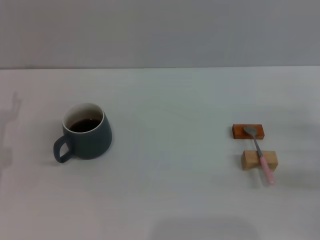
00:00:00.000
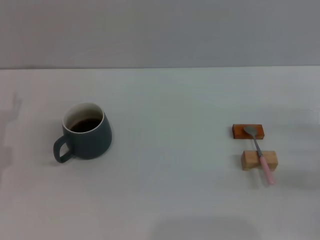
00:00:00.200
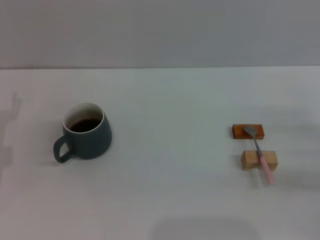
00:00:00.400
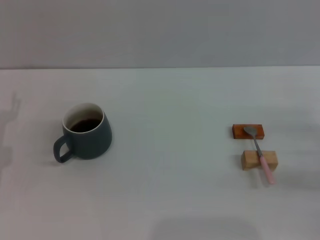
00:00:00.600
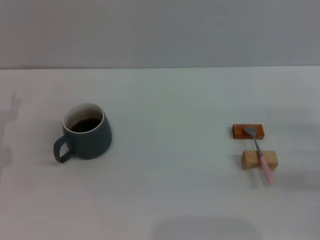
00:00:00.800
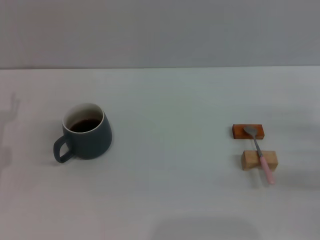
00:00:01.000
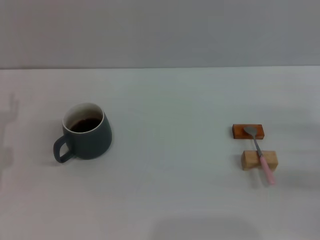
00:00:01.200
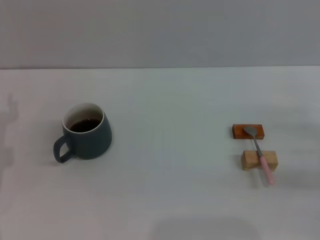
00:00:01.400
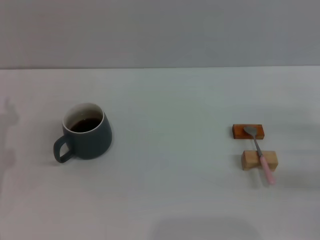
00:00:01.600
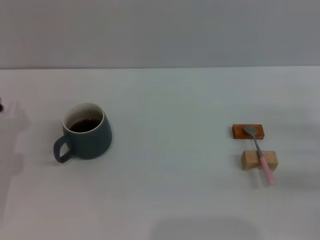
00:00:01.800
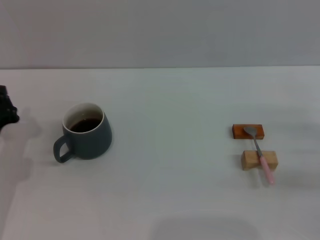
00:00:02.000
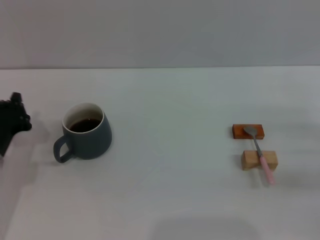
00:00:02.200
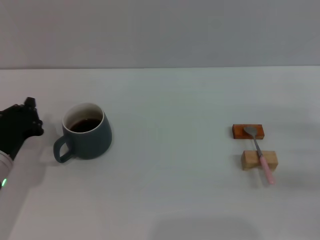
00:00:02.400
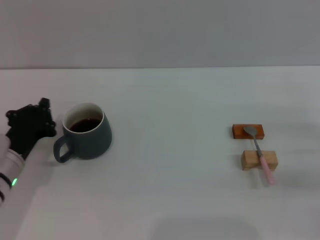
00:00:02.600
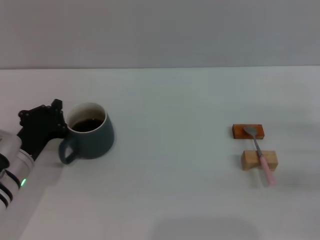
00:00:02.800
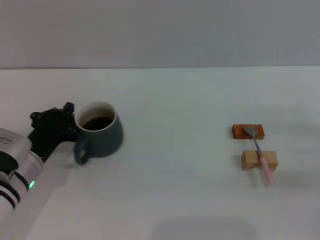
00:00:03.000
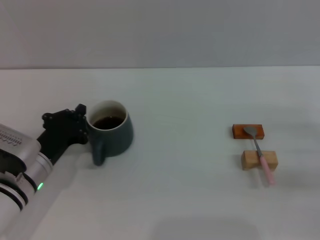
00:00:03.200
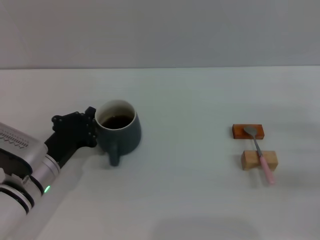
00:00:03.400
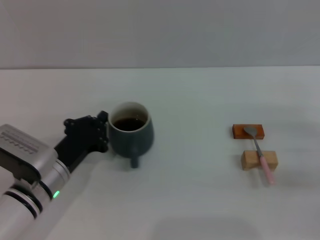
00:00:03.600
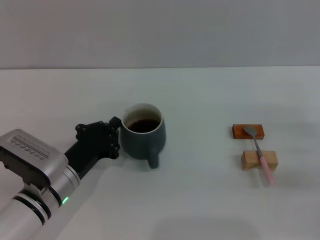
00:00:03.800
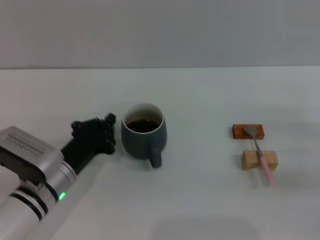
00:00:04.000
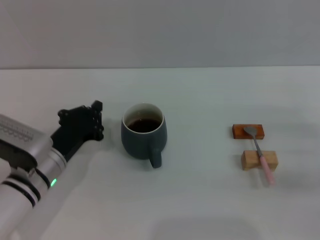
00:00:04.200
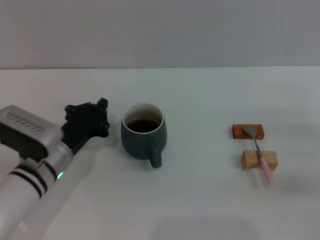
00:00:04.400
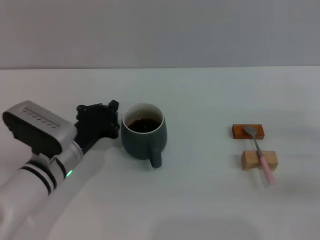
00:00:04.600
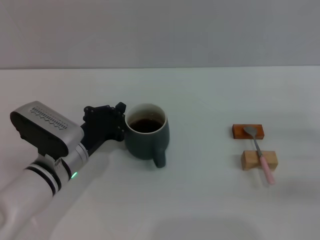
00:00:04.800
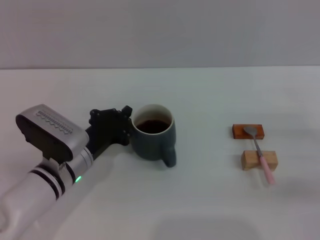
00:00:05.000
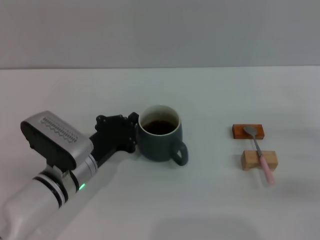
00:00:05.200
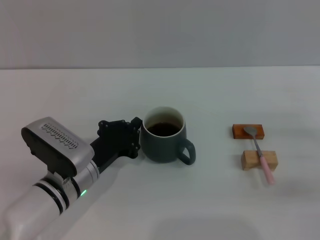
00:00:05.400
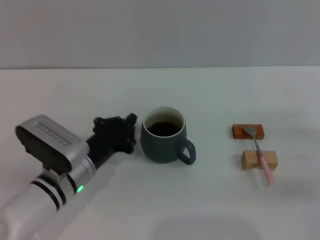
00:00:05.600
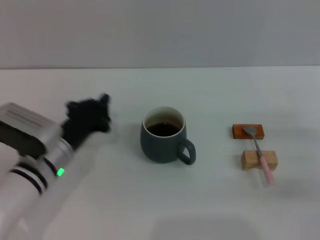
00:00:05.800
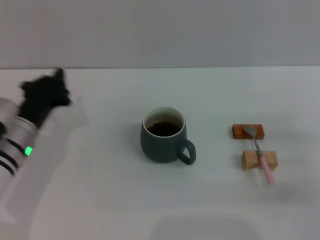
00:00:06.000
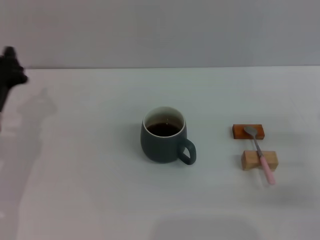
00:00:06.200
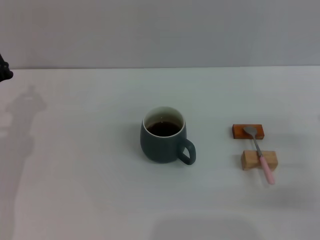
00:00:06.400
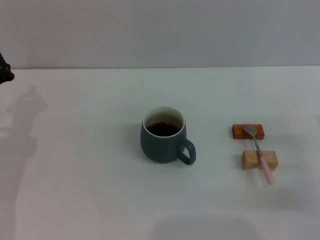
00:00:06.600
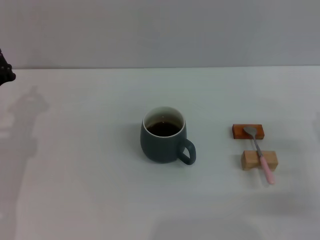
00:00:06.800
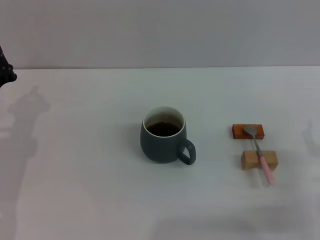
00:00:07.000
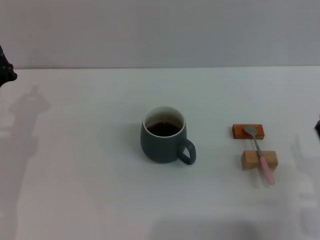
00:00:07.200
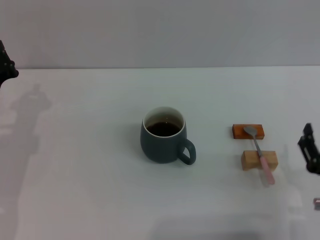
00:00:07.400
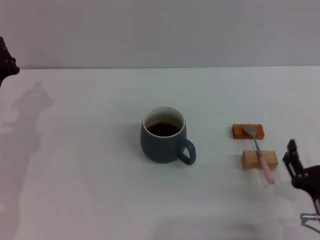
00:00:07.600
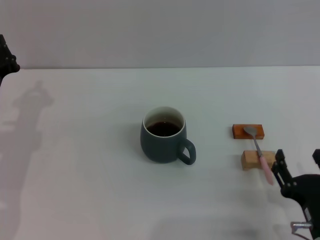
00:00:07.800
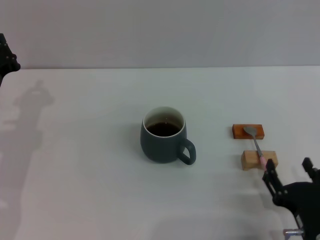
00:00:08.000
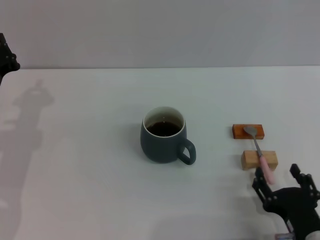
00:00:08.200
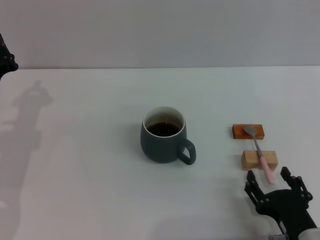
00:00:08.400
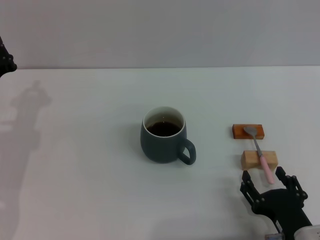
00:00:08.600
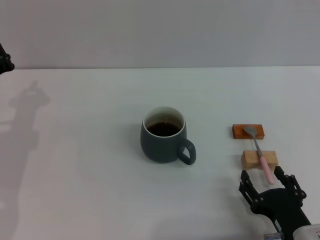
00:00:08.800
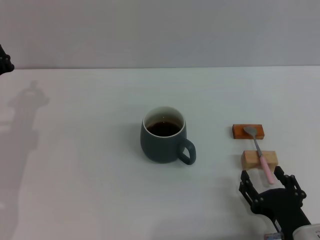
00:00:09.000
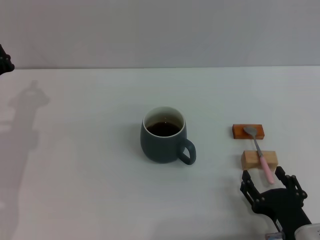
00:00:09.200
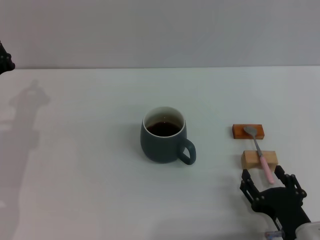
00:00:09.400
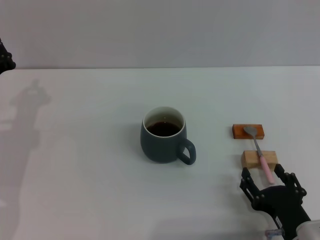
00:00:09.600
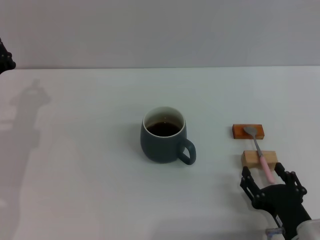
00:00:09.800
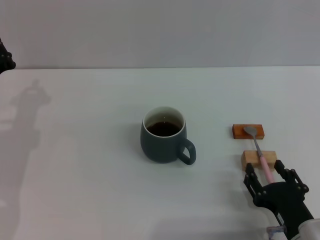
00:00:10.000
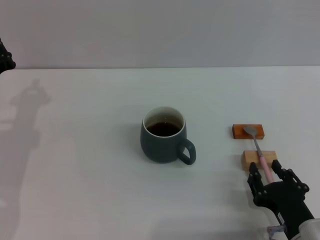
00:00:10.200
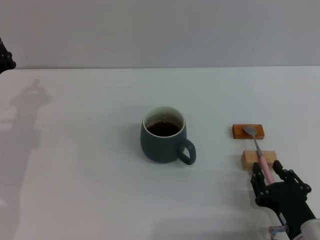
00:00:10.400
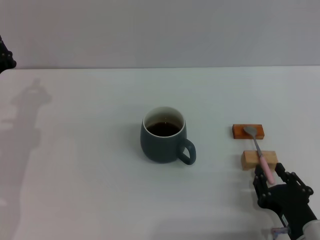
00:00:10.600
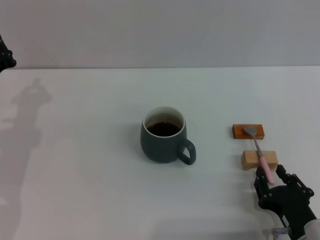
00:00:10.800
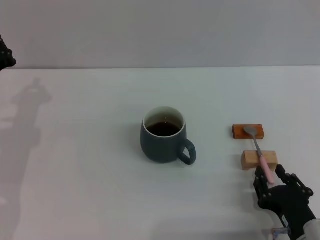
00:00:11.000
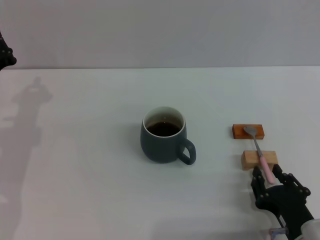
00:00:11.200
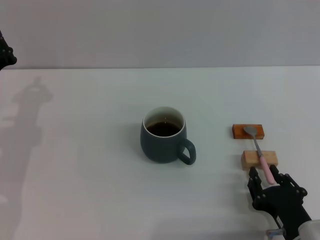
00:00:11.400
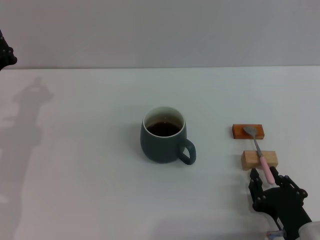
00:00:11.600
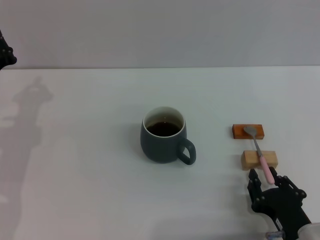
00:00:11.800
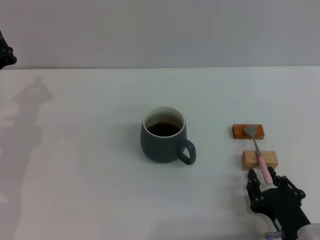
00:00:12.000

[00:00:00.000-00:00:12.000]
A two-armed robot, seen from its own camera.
Task of the whole recording: Move the grey cup to the center, lift the pink spoon, stir it three times in the cup, and put the spoon into the cup.
Step, 00:00:00.000 to 00:00:05.600: Move the cup with coffee to the center of view with the left gripper.
00:00:01.600 to 00:00:03.000: The left gripper travels to the right by about 10 cm, and closes.
00:00:03.000 to 00:00:04.400: The grippers move only a little.
00:00:04.400 to 00:00:06.000: The left gripper moves about 5 cm.
00:00:06.000 to 00:00:07.600: The left gripper moves some 5 cm, while the right gripper moves backward and to the left, approximately 15 cm.
00:00:07.600 to 00:00:09.000: The grippers make only small movements.
00:00:09.000 to 00:00:10.400: The right gripper closes.
00:00:10.400 to 00:00:12.000: Both grippers stay put.

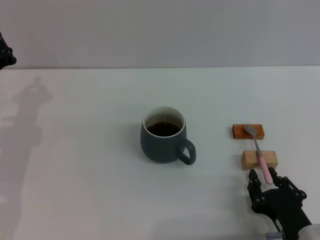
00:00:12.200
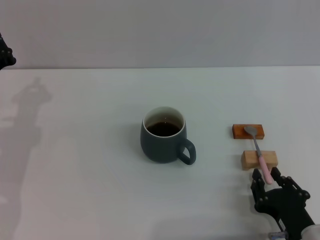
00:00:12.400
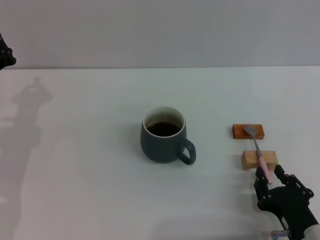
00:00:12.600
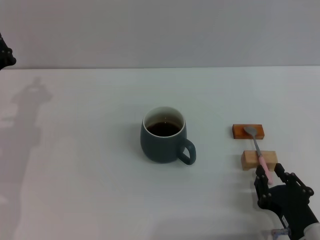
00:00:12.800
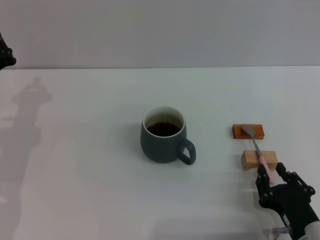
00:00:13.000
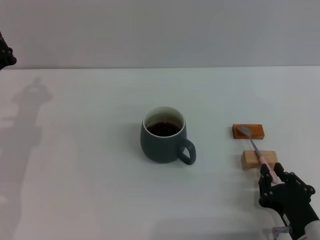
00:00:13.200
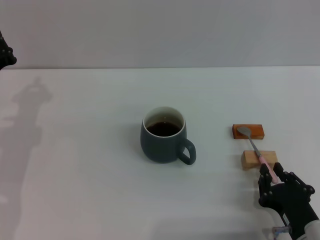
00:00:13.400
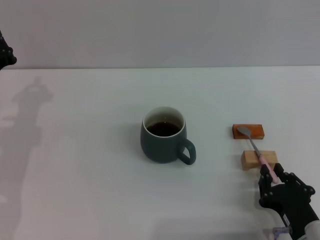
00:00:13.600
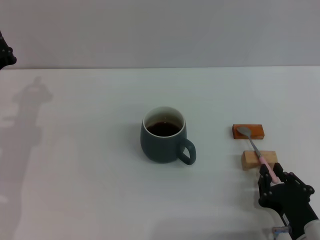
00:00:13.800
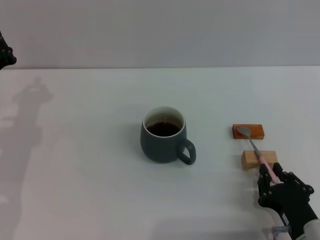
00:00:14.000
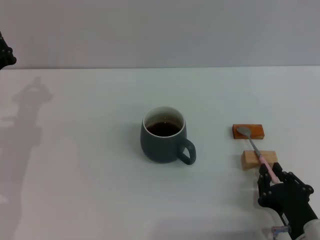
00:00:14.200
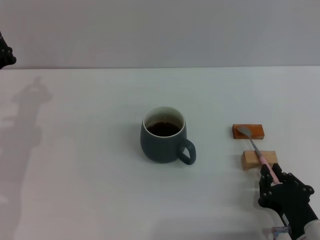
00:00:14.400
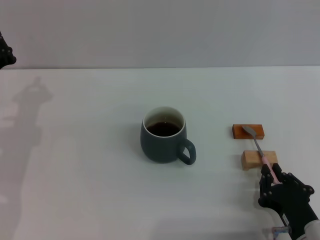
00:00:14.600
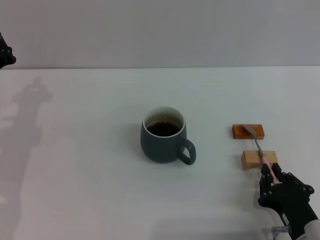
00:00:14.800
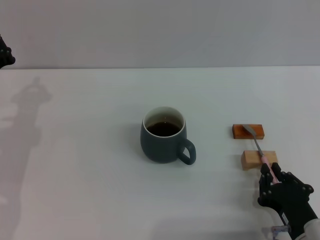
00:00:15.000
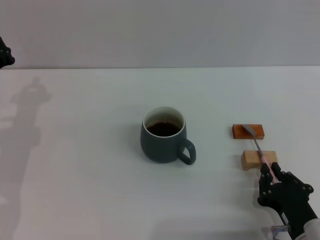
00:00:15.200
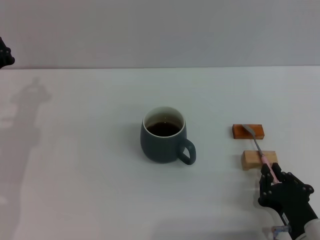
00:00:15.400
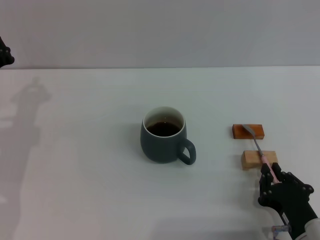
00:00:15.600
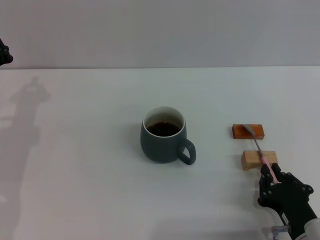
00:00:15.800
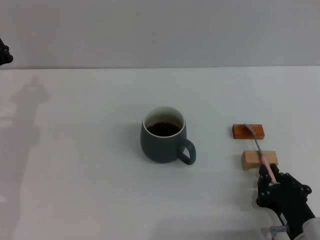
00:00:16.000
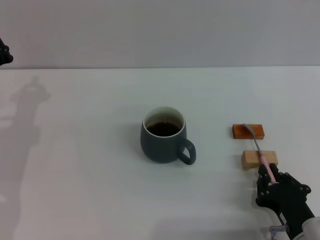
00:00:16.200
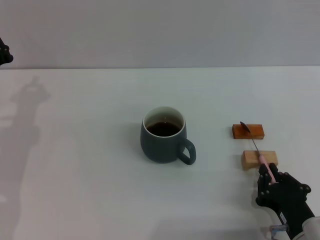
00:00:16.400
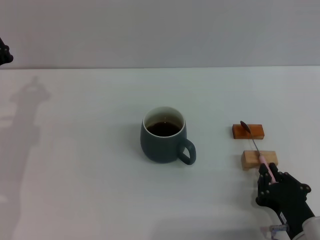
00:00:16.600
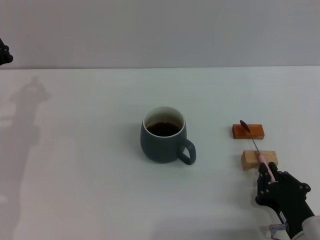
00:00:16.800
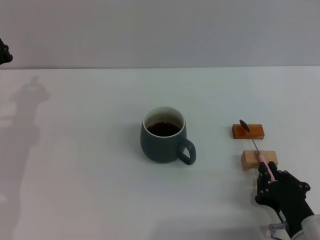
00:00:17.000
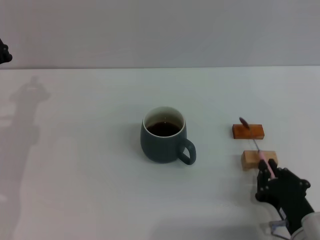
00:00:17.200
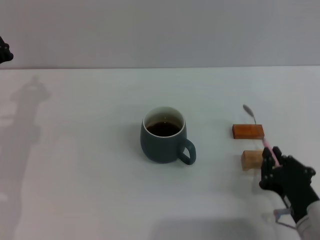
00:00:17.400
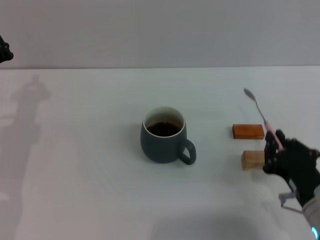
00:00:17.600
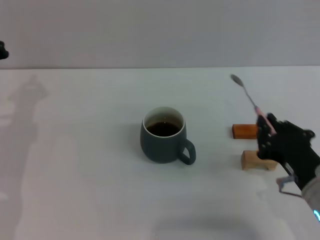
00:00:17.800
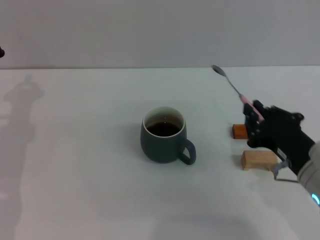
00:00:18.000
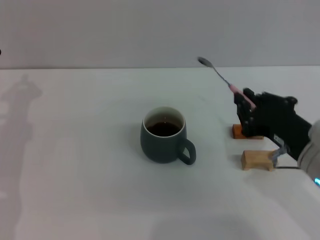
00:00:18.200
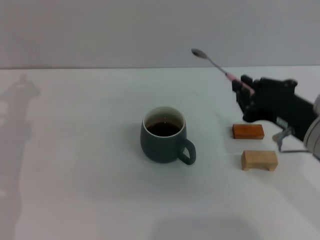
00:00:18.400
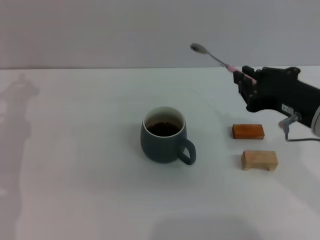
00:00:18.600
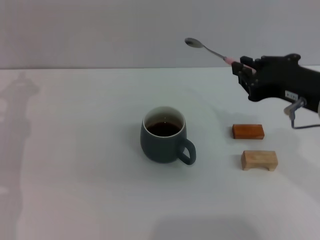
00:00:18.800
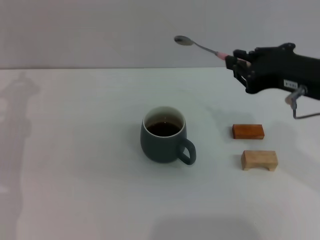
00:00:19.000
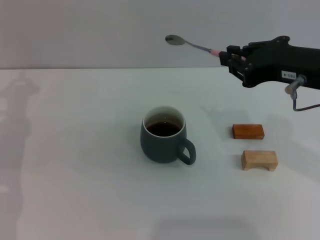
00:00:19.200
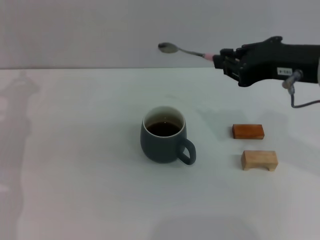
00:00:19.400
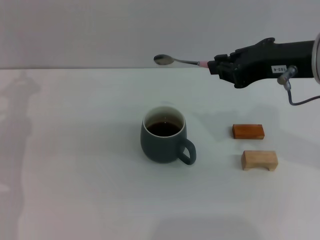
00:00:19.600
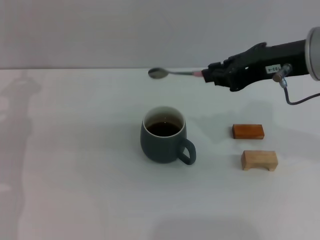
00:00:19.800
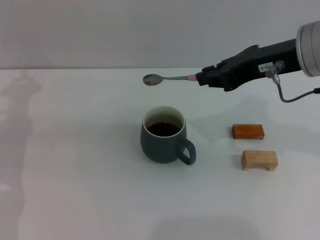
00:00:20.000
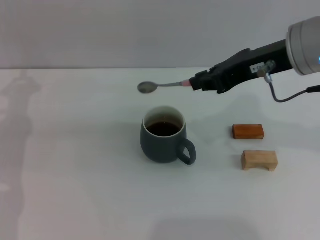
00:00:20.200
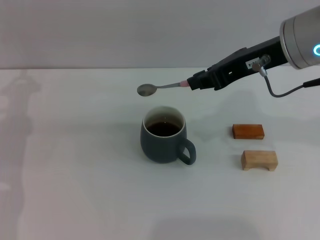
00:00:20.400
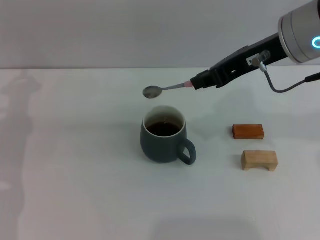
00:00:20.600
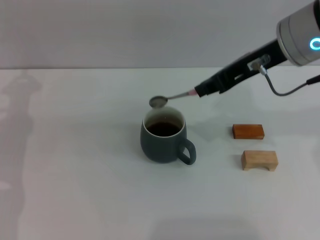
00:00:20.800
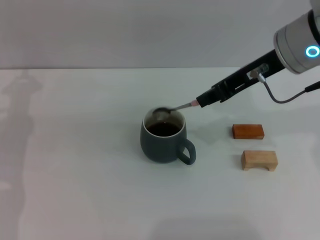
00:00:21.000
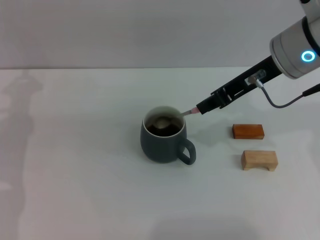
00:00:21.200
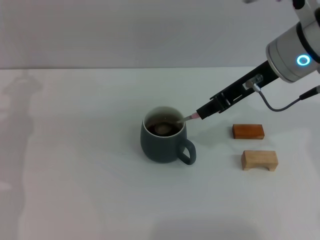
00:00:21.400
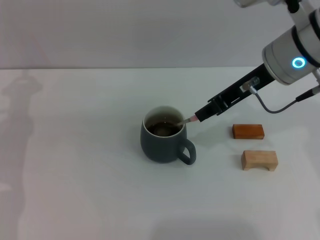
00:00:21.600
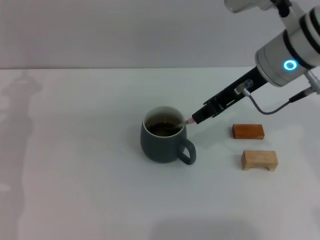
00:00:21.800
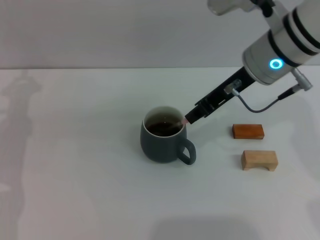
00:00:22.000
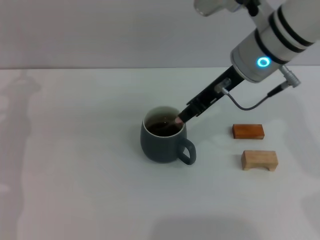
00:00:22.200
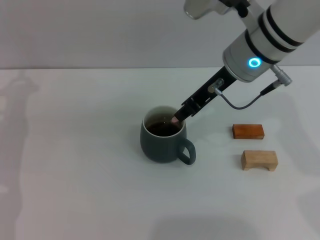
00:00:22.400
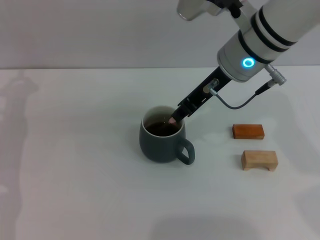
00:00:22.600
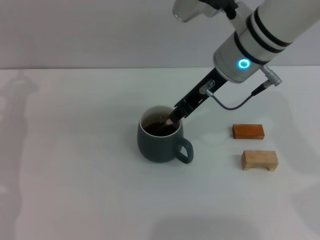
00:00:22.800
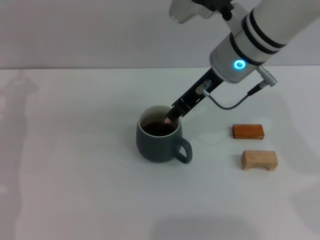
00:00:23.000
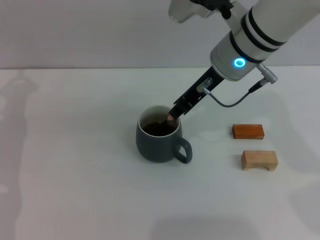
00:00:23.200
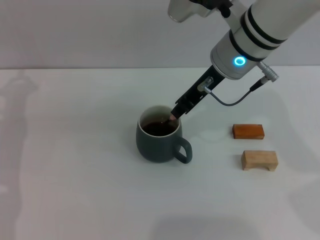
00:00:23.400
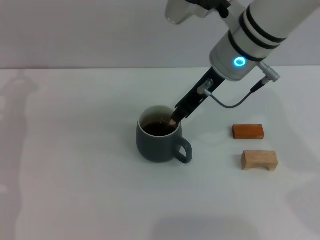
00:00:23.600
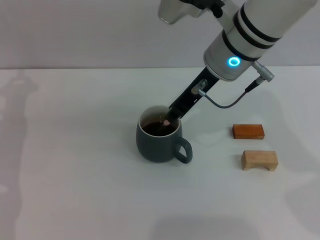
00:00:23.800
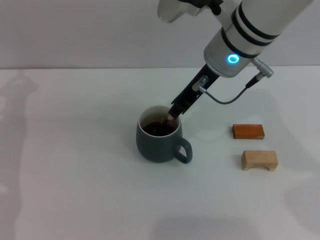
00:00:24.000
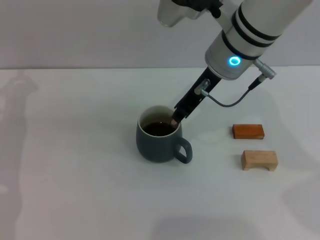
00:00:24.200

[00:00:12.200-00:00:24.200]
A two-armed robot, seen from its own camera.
Task of the whole recording: Move the grey cup to the center, lift the pink spoon, stir it three times in the cup, and put the spoon into the cup.
Step, 00:00:12.200 to 00:00:17.800: Pick up the spoon with the right gripper.
00:00:12.200 to 00:00:16.600: Both grippers stay put.
00:00:16.600 to 00:00:18.200: The right gripper heads upward and forward, covering roughly 15 cm.
00:00:18.200 to 00:00:19.800: The right gripper is displaced upward and forward by approximately 15 cm.
00:00:19.800 to 00:00:21.200: The right gripper shifts by roughly 5 cm.
00:00:21.200 to 00:00:22.600: The right gripper goes approximately 5 cm to the left.
00:00:22.600 to 00:00:24.200: There are only small adjustments of the grippers.
